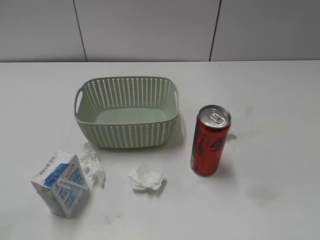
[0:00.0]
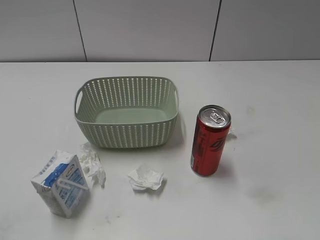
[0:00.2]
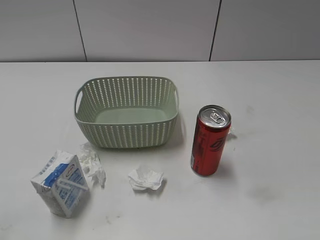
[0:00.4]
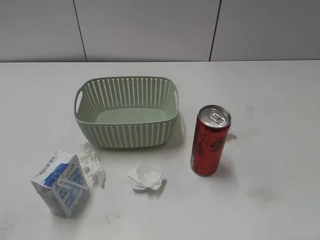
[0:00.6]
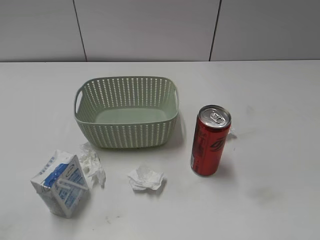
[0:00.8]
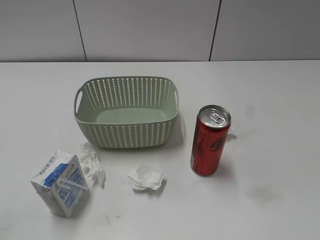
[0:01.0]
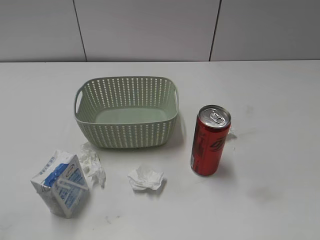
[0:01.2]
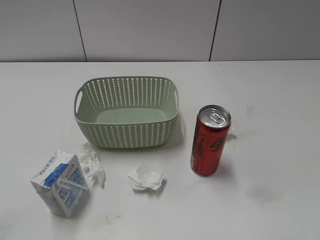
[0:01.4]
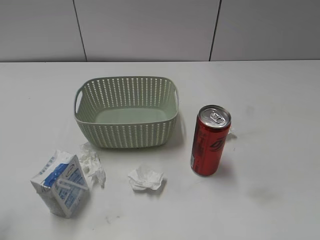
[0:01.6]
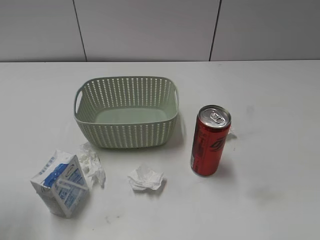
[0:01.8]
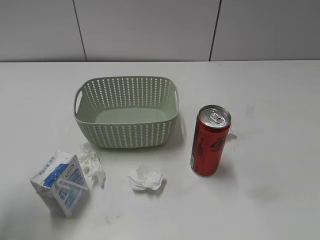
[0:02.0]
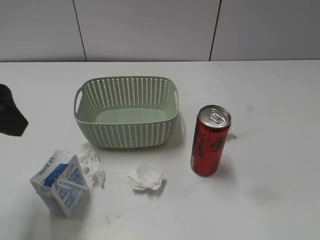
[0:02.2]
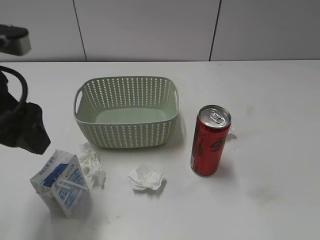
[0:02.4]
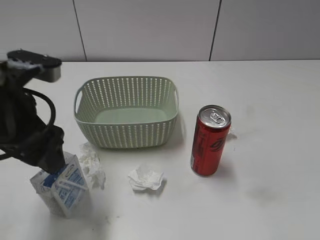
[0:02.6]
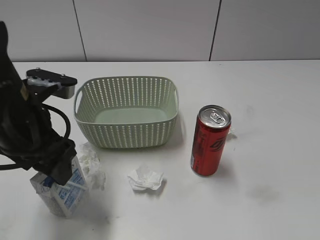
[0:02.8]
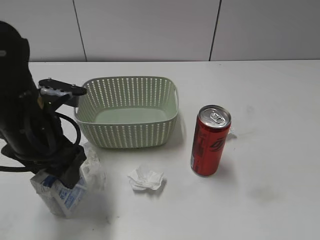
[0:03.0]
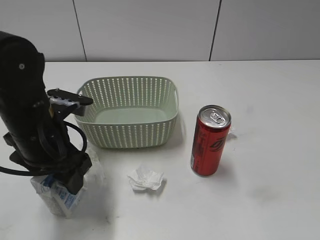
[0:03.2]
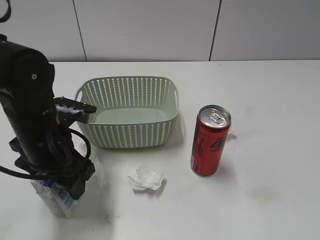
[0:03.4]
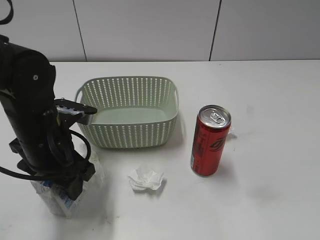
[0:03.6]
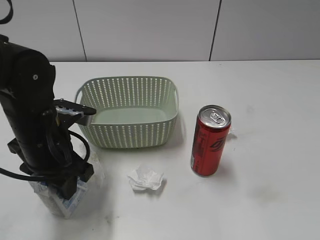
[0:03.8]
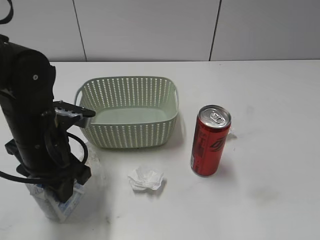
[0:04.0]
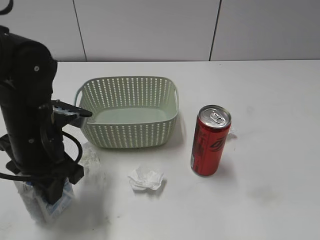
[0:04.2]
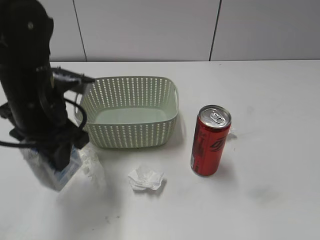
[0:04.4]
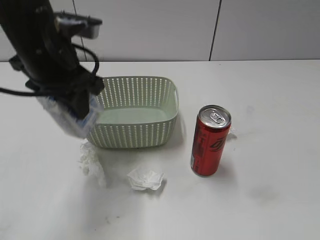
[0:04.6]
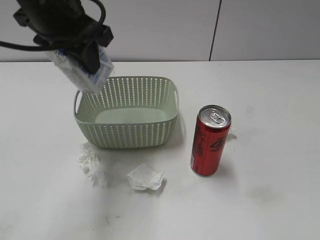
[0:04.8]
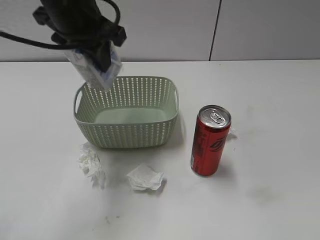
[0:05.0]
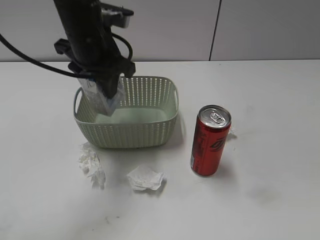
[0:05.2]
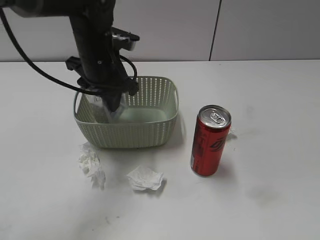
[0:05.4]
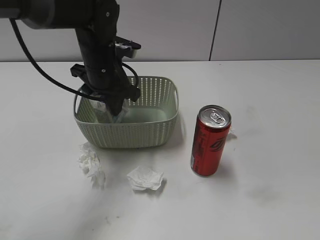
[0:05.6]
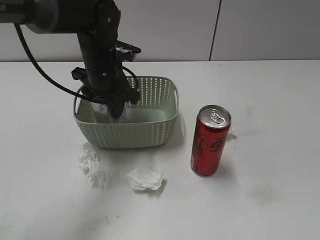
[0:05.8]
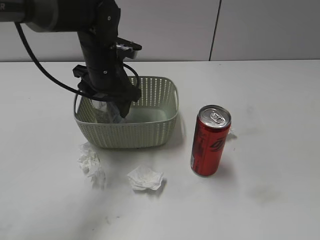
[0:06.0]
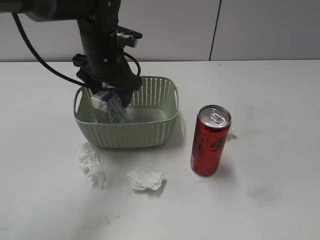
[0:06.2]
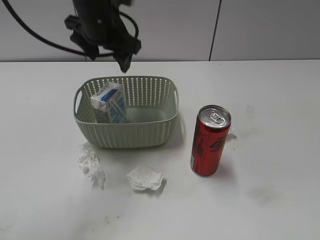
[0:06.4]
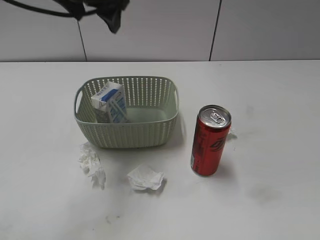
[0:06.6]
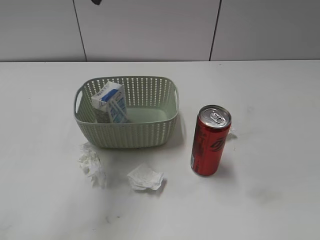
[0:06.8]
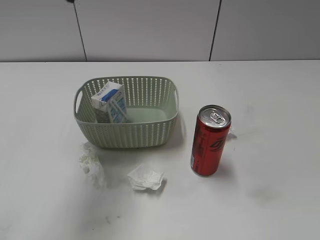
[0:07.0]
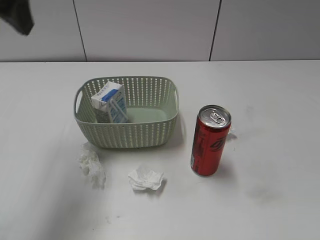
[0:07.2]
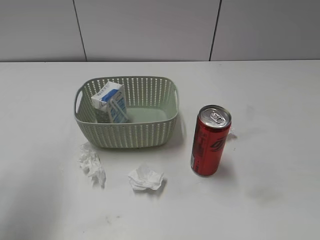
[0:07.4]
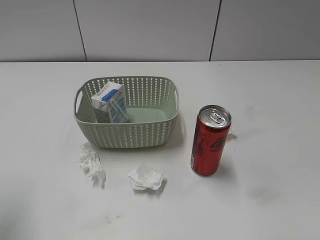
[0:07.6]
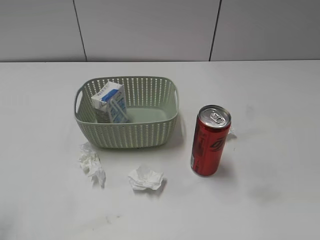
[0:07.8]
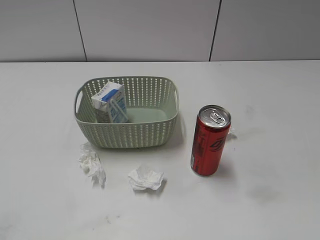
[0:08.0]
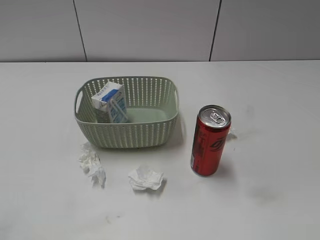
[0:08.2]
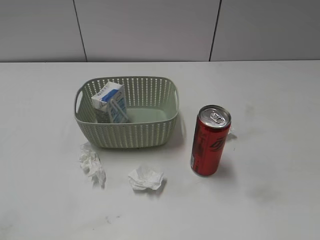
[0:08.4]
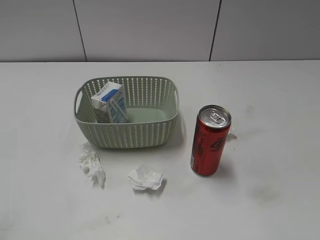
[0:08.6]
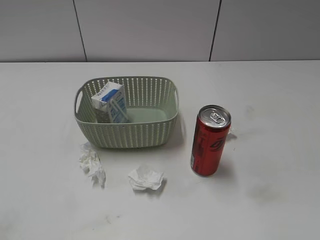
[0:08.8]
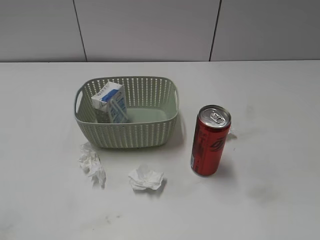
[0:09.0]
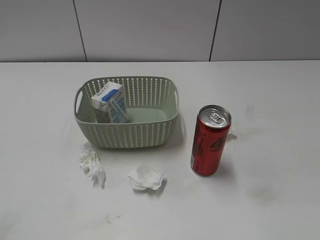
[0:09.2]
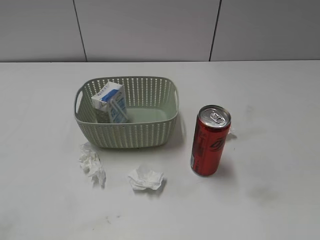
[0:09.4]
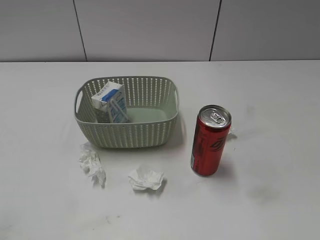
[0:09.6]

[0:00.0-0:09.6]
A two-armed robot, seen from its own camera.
Step, 2.2 to 3.8 s: Grasp the milk with left gripper.
Step, 4.0 to 6.4 s: Place the milk in the basket with left gripper.
1.6 to 3.2 s: The left gripper moves to the right, forward and downward, approximately 25 cm.
3.2 to 4.8 s: The left gripper shifts about 15 cm upward and forward, and closes its fingers.
4.8 to 6.4 s: The left gripper shifts roughly 10 cm forward and downward, and opens.
6.4 to 8.0 s: The left gripper goes roughly 40 cm backward and to the left.

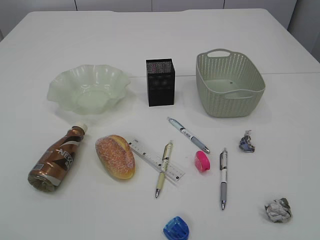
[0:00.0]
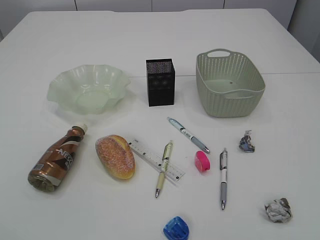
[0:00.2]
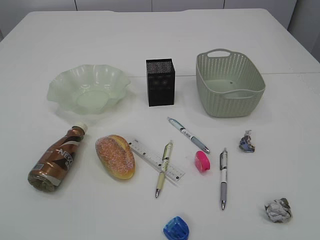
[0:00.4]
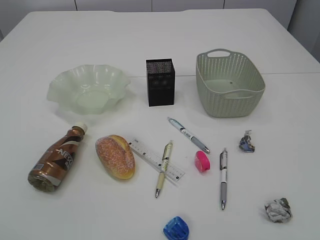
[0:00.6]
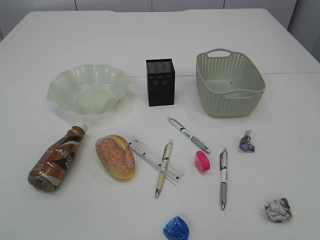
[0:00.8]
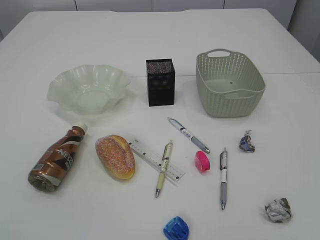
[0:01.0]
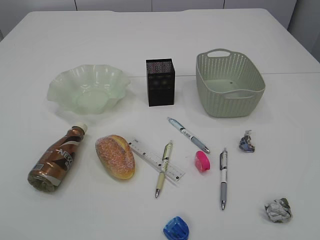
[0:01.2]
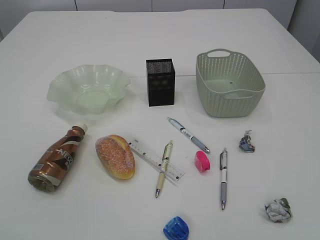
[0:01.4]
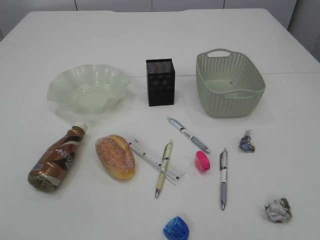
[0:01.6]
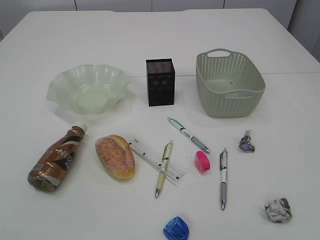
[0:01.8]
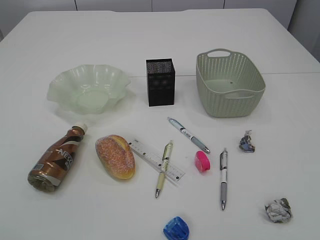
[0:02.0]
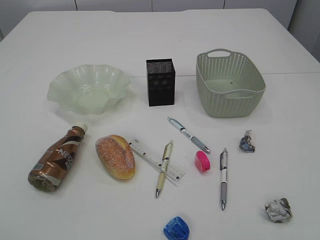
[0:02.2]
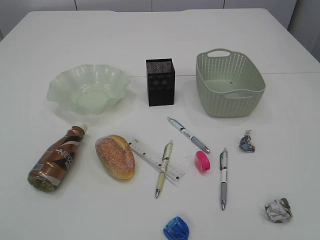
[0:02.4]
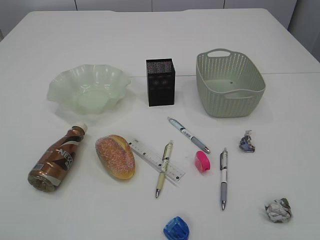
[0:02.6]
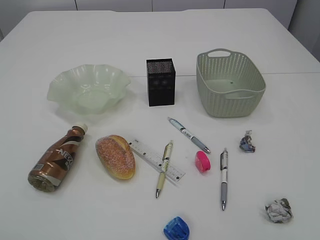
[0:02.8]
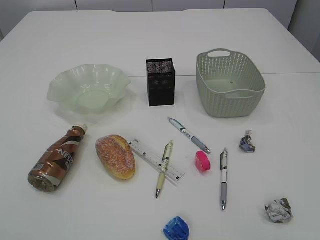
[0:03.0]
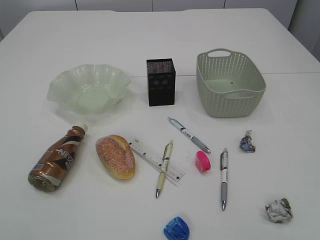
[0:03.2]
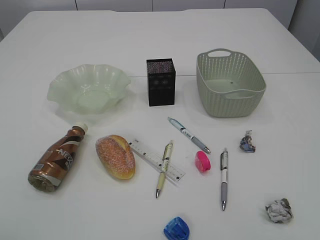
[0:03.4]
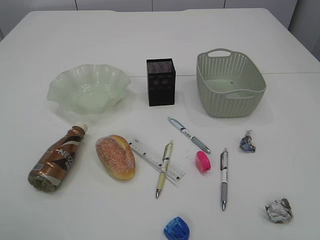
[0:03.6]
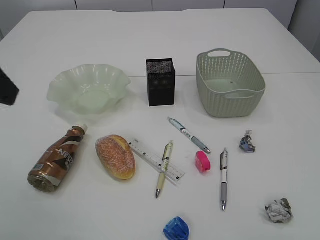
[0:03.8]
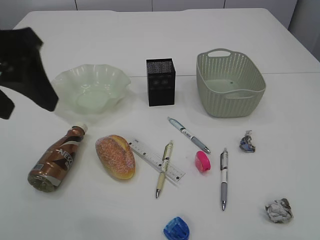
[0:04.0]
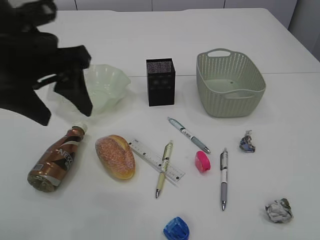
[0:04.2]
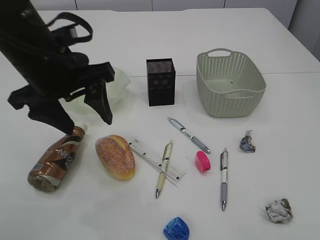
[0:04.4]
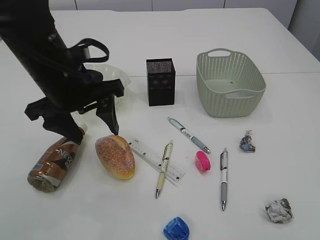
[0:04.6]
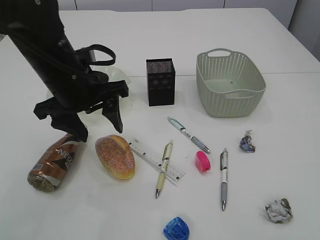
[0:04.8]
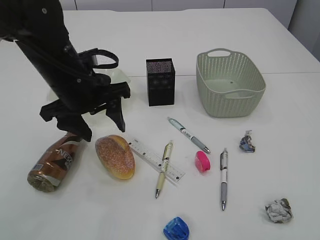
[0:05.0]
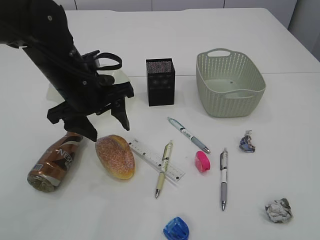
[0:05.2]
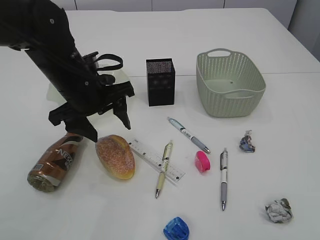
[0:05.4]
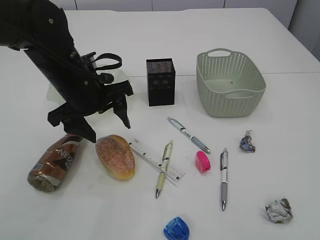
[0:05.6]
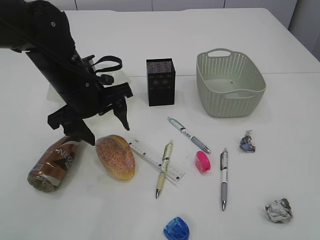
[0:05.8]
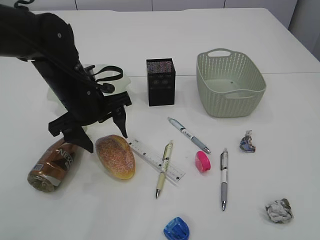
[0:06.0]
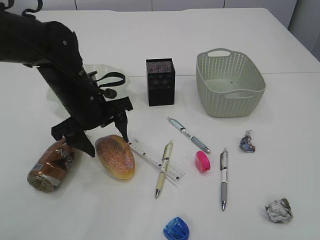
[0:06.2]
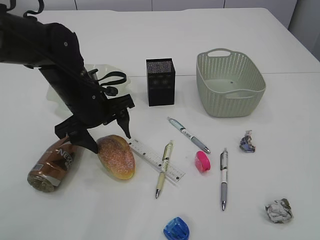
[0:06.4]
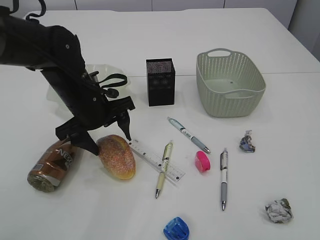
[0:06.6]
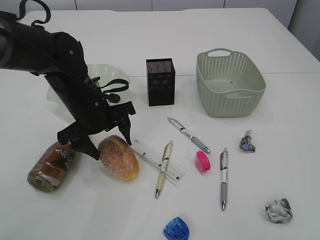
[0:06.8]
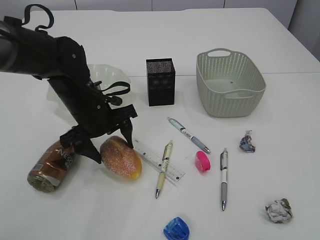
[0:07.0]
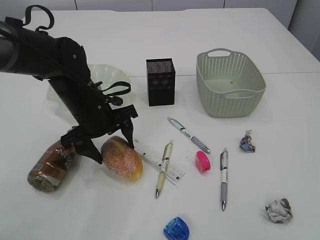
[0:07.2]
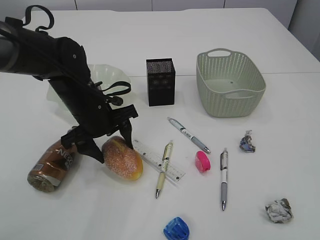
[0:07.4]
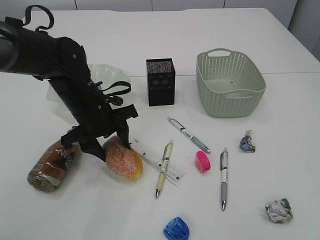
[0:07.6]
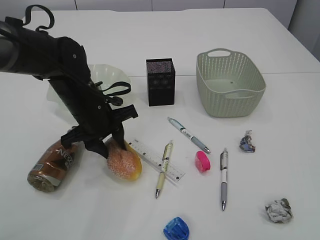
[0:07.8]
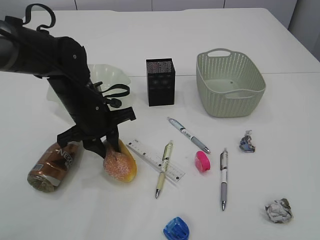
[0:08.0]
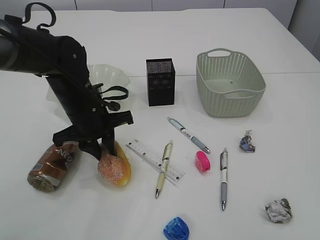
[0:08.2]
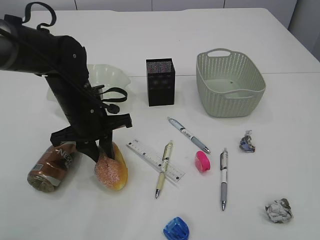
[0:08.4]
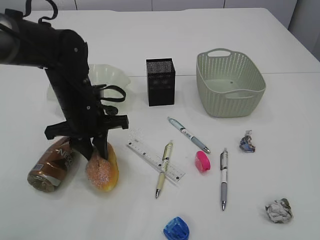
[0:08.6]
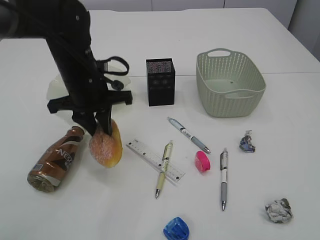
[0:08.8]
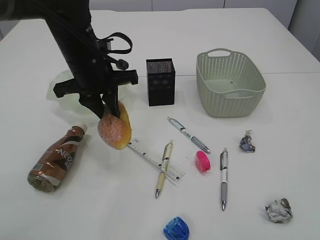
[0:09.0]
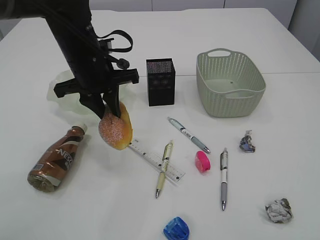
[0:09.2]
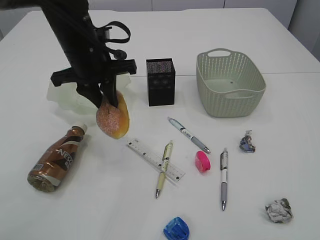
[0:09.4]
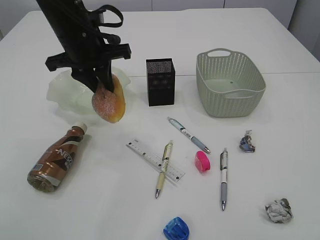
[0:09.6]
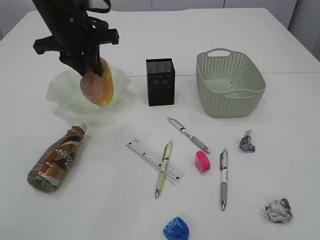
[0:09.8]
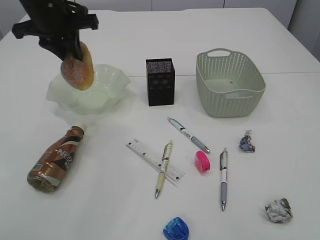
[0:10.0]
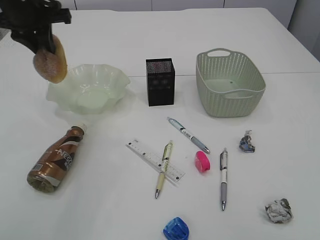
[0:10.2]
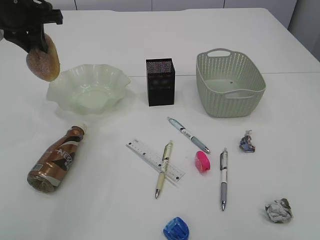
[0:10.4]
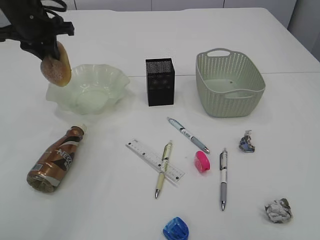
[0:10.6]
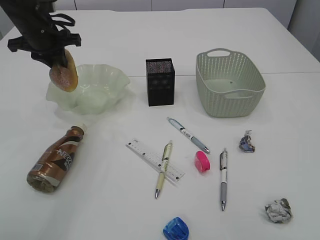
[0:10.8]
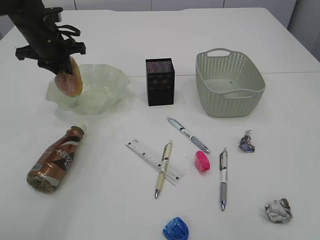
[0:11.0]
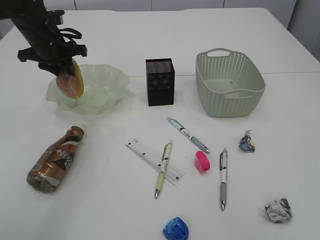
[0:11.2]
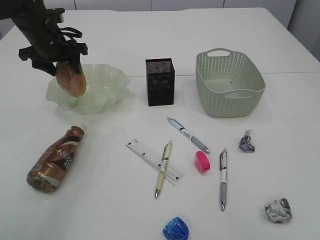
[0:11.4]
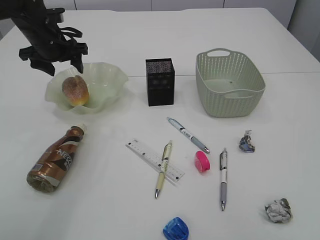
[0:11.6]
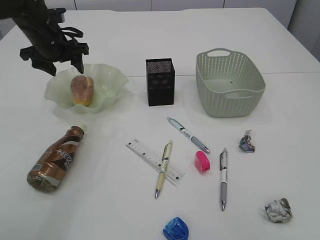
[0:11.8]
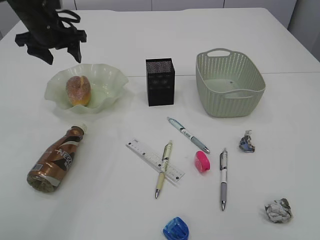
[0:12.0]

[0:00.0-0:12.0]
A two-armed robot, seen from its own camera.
3.0 to 4.4 s: The left gripper shifts about 25 cm forward and to the right.
4.4 to 6.0 s: The left gripper heads downward and forward, covering about 10 cm.
6.0 to 7.6 s: The left gripper closes its fingers.
7.6 to 9.0 s: The left gripper shifts about 10 cm upward, and closes its fingers.
9.0 to 10.4 s: The left gripper goes approximately 15 cm to the left, upward and forward.
10.4 to 12.0 s: The left gripper travels downward and forward by roughly 10 cm, and opens up.

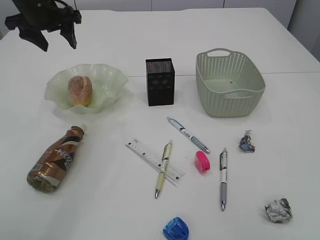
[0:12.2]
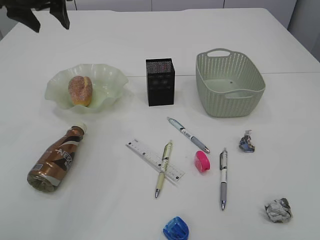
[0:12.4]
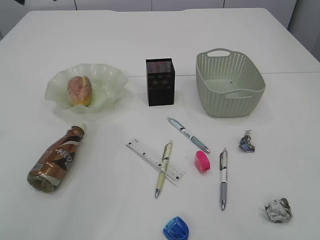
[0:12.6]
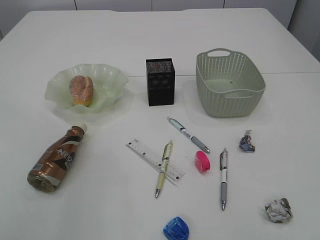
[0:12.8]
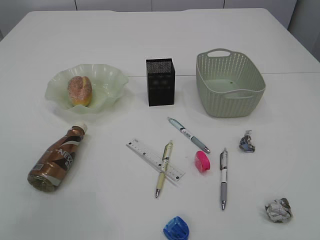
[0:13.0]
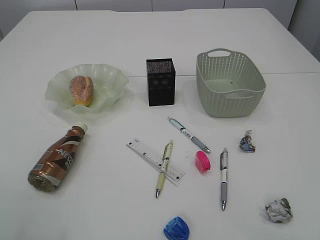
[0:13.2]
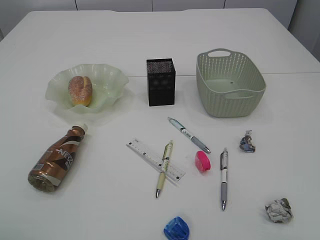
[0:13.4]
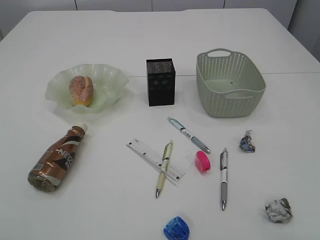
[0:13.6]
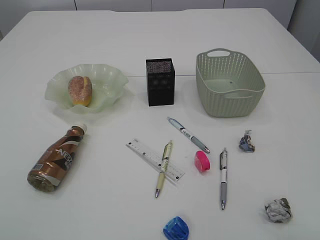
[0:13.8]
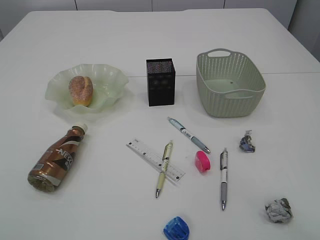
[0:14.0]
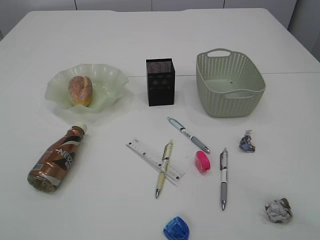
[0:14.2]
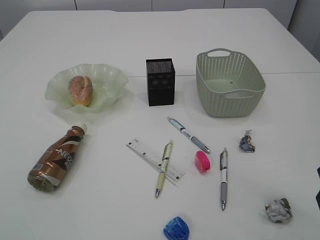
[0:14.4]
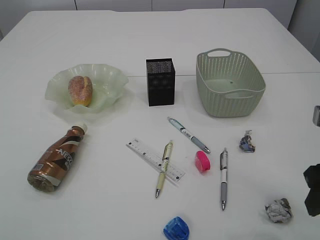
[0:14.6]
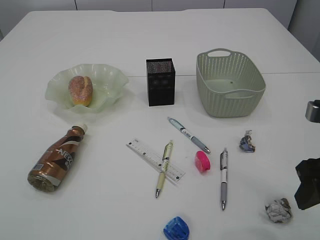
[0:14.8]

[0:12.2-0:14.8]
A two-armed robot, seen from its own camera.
12.2 to 13.4 s: The left gripper heads backward, covering about 30 cm.
13.4 to 14.8 s: The right gripper goes approximately 15 cm forward.
